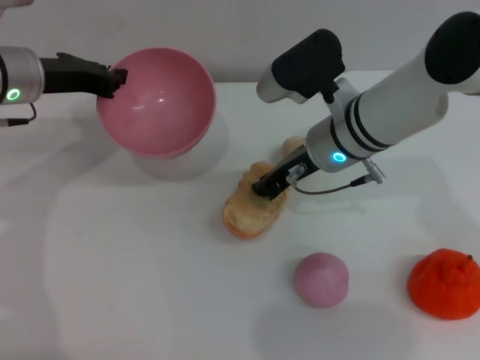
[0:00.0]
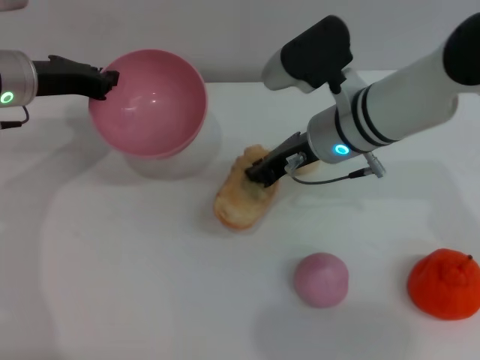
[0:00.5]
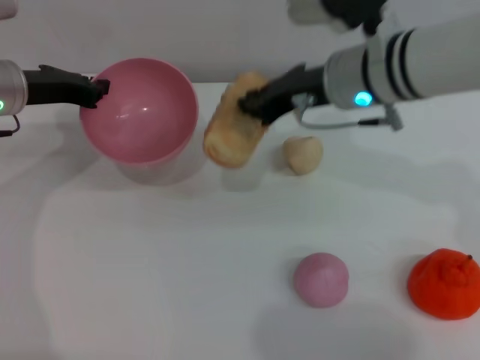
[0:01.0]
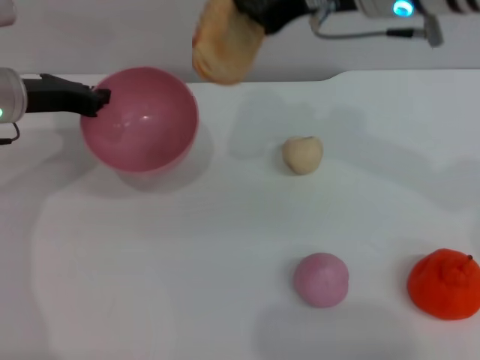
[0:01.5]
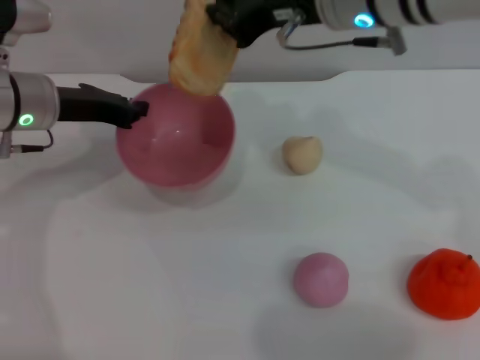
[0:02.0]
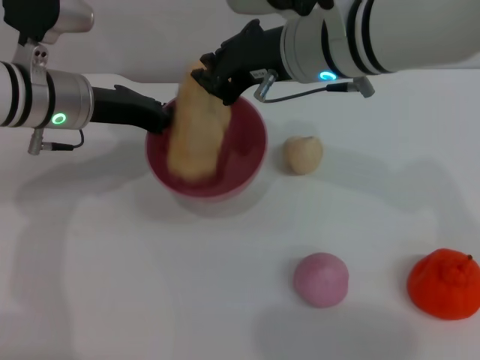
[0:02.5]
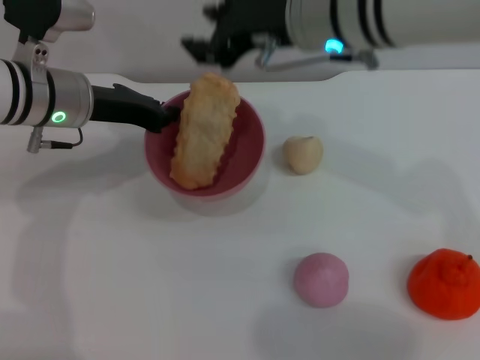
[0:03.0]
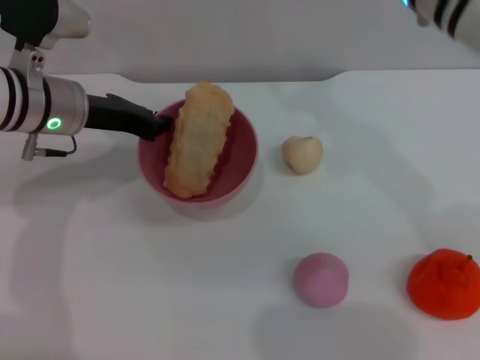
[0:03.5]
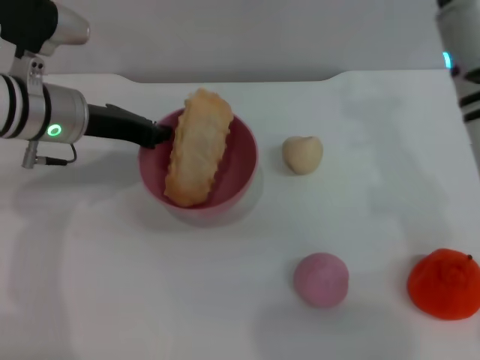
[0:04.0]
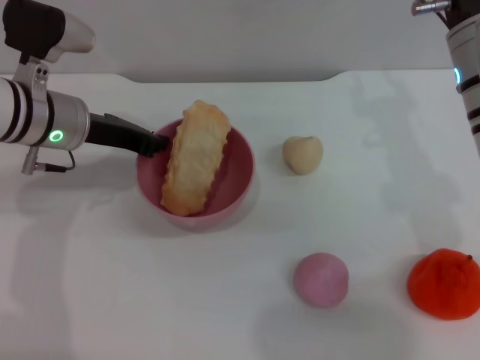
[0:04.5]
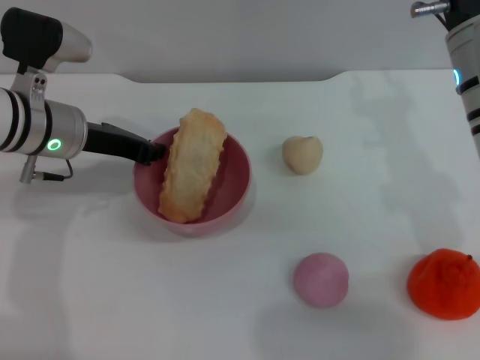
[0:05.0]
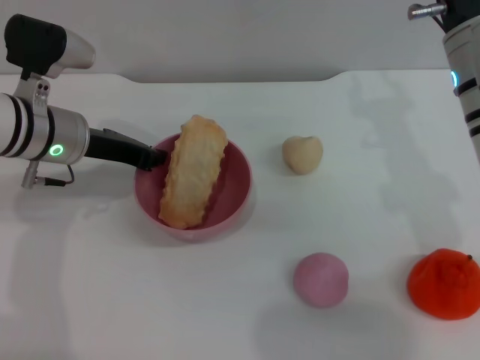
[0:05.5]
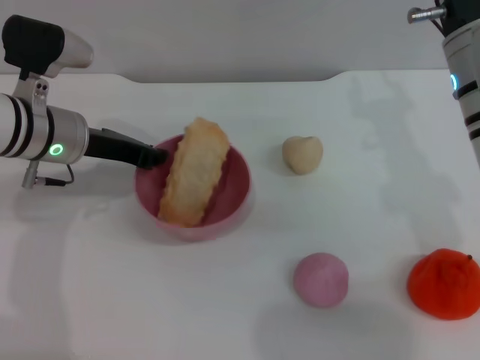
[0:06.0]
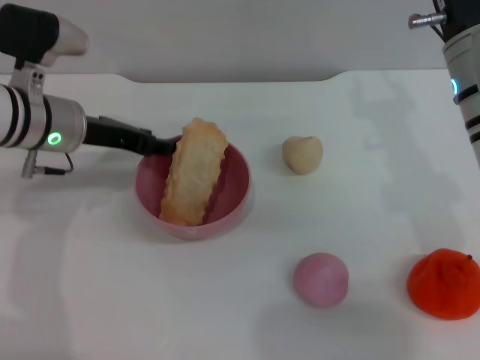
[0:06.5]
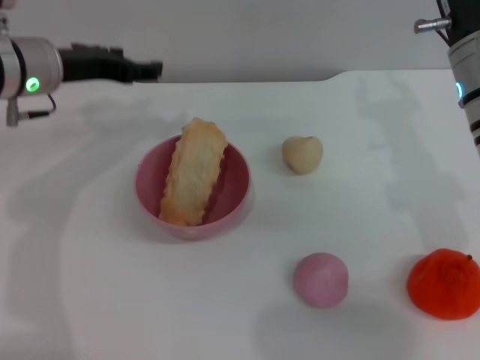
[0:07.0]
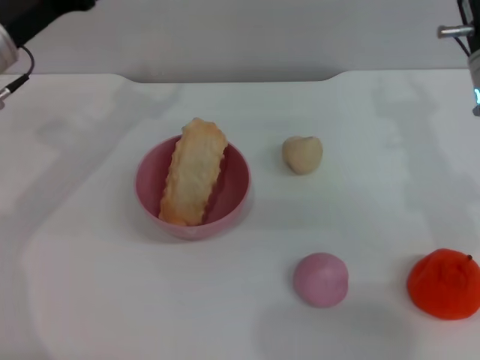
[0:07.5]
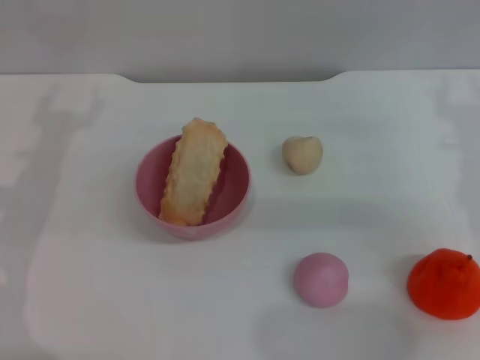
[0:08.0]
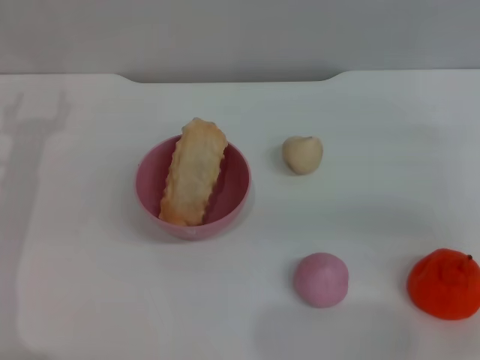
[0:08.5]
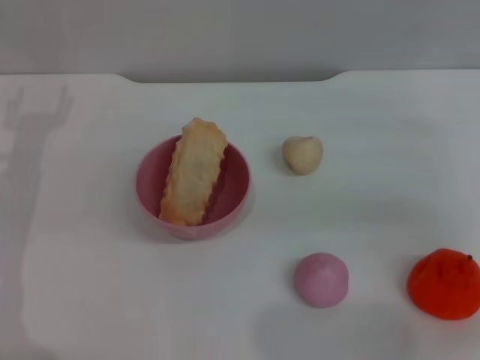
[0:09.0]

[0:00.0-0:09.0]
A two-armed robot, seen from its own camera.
Task of the whole recording: put the bread into the pink bowl and pour it out repeatedly.
Step, 0:01.5 to 0:02.5: Place the bread into the bowl.
Step, 0:03.0 to 0:06.5: Place the bowl on the table.
0:00.0 to 0:02.0: The right gripper moves upward, roughly 15 cm.
0:02.0 to 0:04.5: The right gripper moves downward and to the right, some 10 cm, and opens up.
0:04.5 to 0:07.0: The left gripper opens up.
0:07.0 to 0:09.0: The left gripper is displaced to the left, backward and downward by roughly 10 cm, while the right gripper is displaced to the right by about 15 cm.

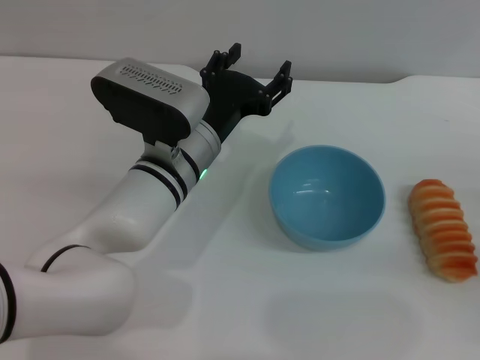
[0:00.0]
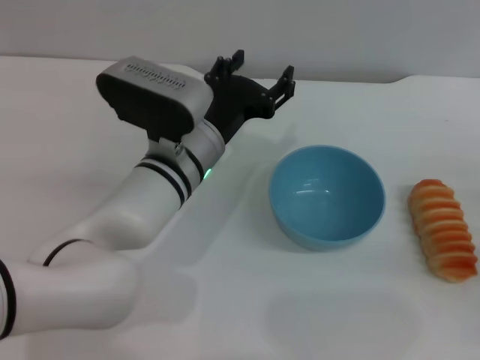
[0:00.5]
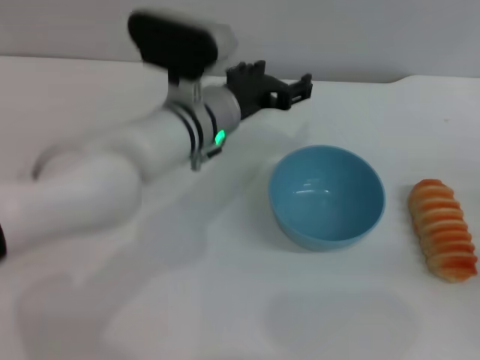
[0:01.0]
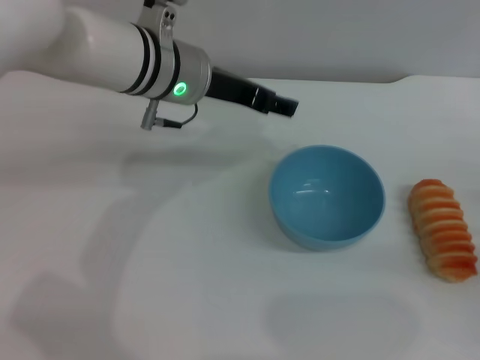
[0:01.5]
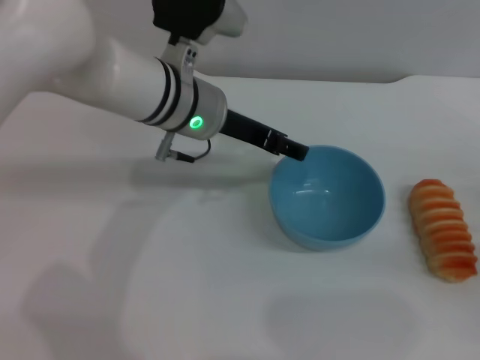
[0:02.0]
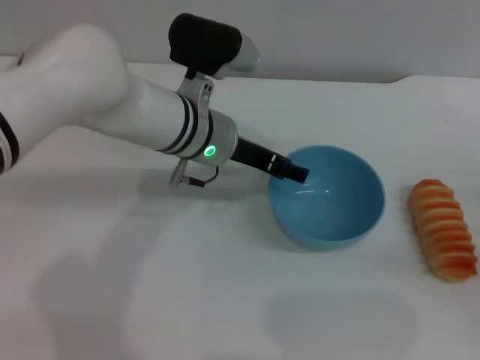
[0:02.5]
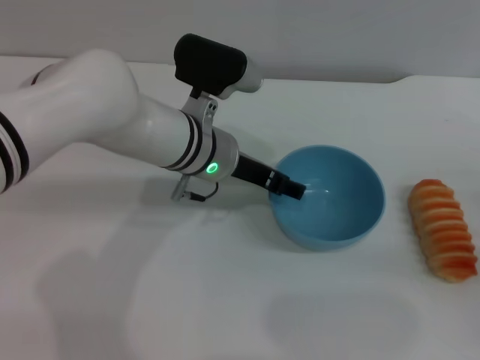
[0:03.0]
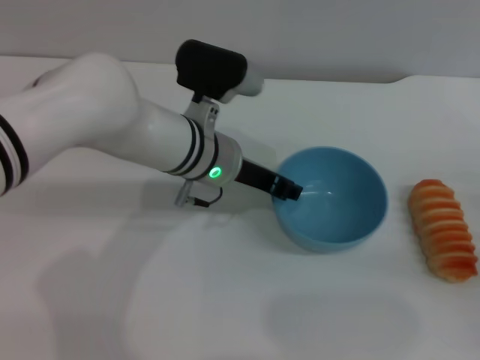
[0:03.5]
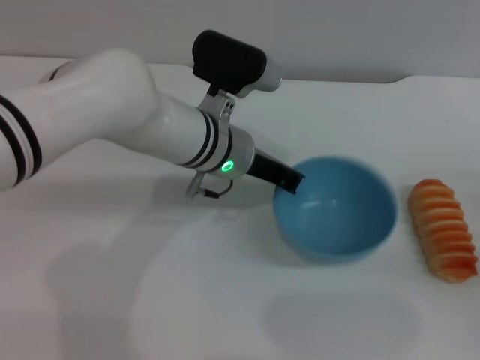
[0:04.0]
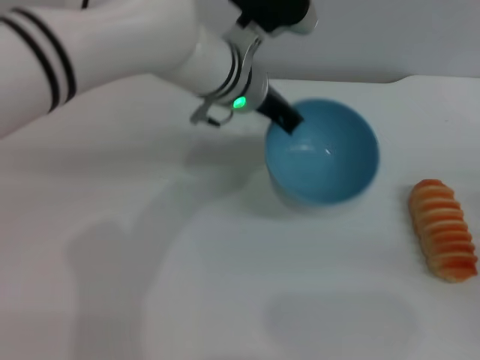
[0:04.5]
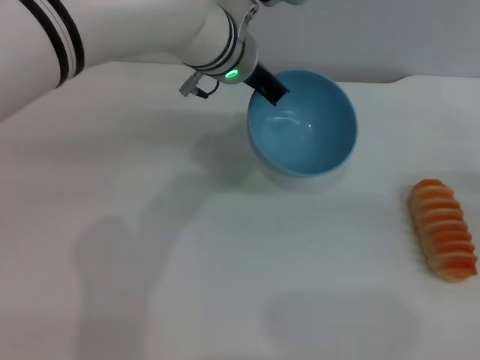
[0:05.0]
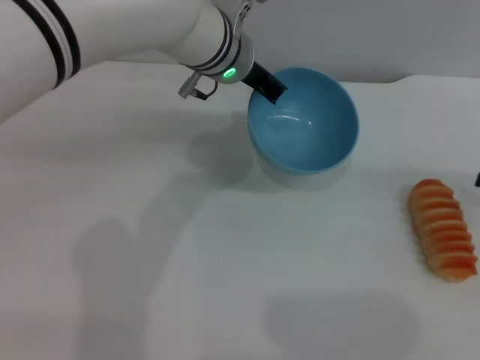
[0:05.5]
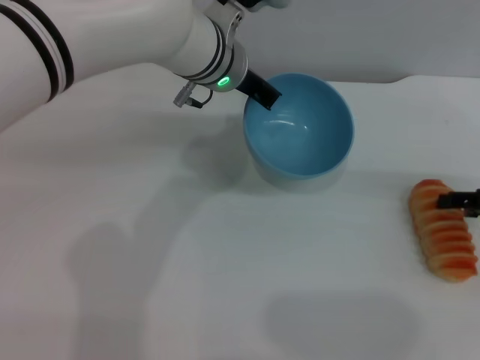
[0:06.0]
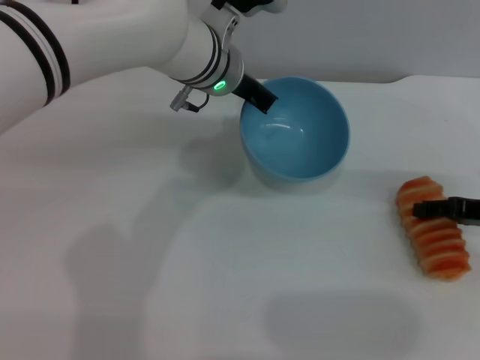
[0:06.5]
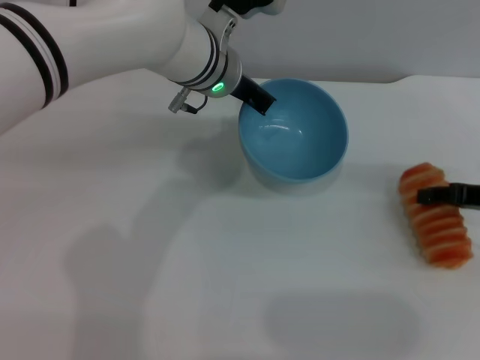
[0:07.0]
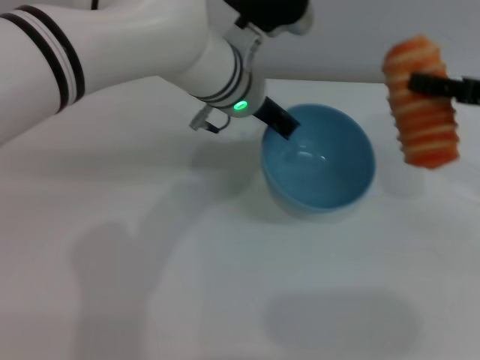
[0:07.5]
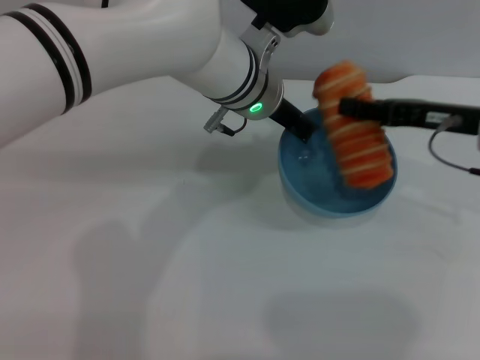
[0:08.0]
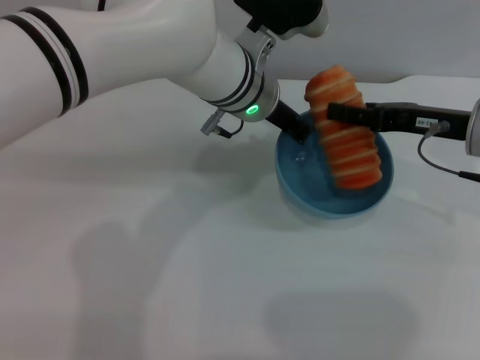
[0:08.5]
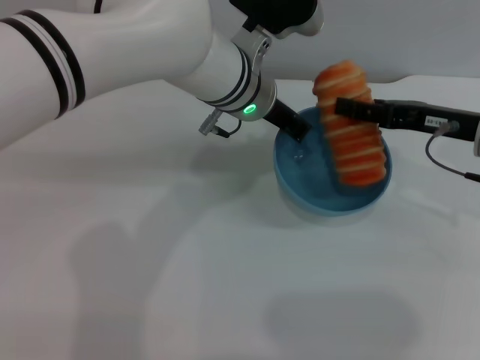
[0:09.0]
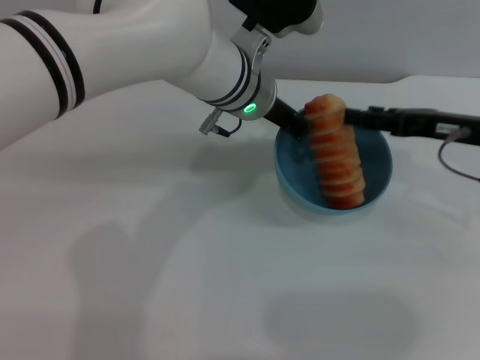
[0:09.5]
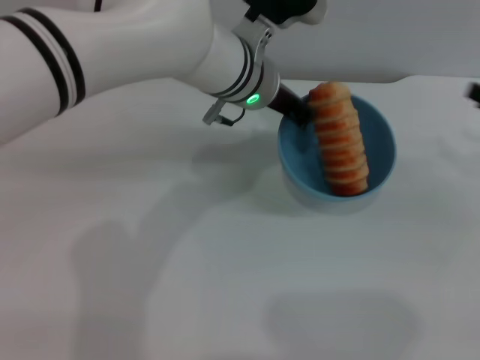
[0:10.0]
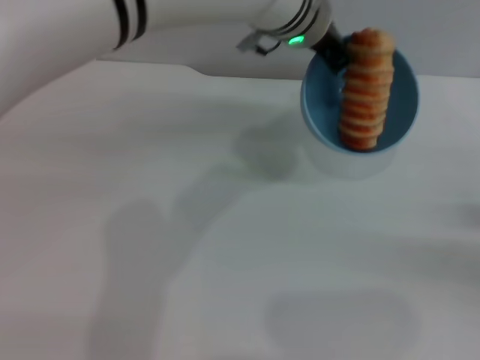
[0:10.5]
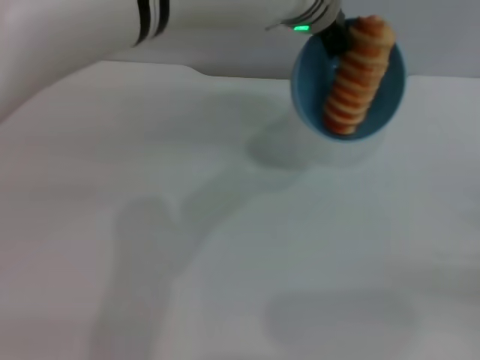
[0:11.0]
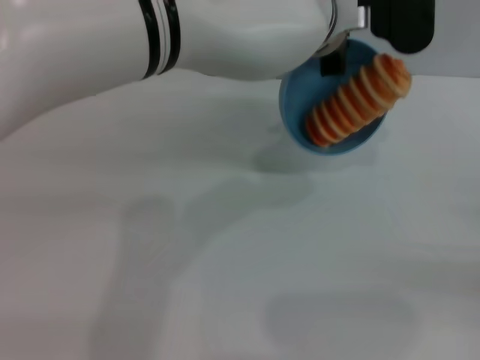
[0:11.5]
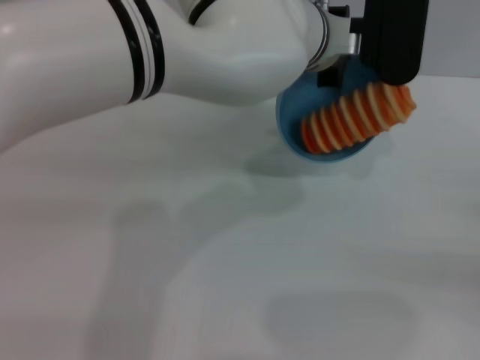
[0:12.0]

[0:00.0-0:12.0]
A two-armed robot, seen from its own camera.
Task of the whole recording: put the bread into the blue bowl and pour it out repeatedly.
Step, 0:00.0 to 0:04.0: Pick up the bowl with the left gripper.
Step, 0:04.5 to 0:07.0: Pick up the bread with the right gripper.
Step, 0:07.5 to 0:09.5: Place the bread into the bowl.
0:00.0 to 0:02.0: The left gripper shifts some 10 cm upward and forward.
0:02.0 to 0:04.0: The left gripper moves approximately 5 cm, and closes.
0:04.0 to 0:06.0: The left gripper shifts roughly 10 cm upward and forward, while the right gripper travels forward by roughly 5 cm.
0:06.0 to 0:08.0: The right gripper moves to the left and upward, roughly 10 cm, and closes its fingers.
0:08.0 to 0:10.0: The right gripper heads to the right, covering about 10 cm, and opens.
0:10.0 to 0:12.0: The left gripper travels to the right by approximately 5 cm. Meanwhile the right gripper shifts some 10 cm backward and downward.

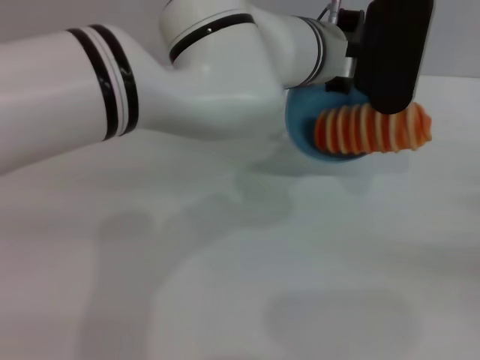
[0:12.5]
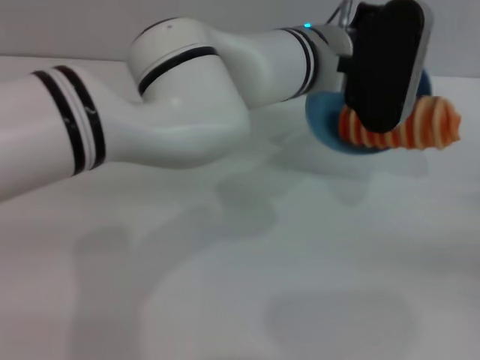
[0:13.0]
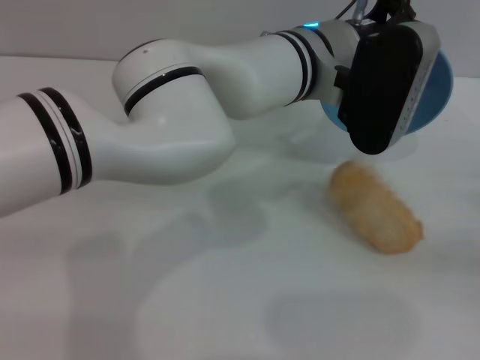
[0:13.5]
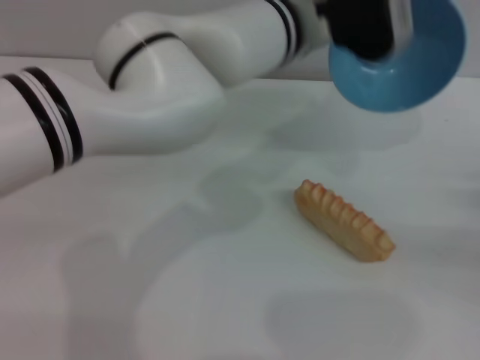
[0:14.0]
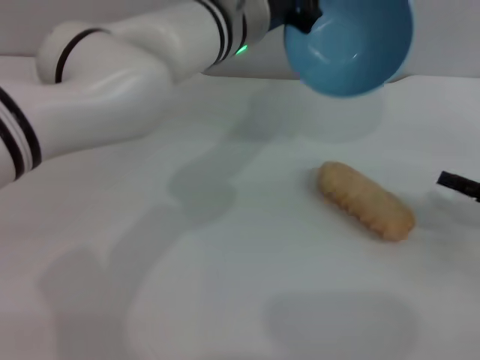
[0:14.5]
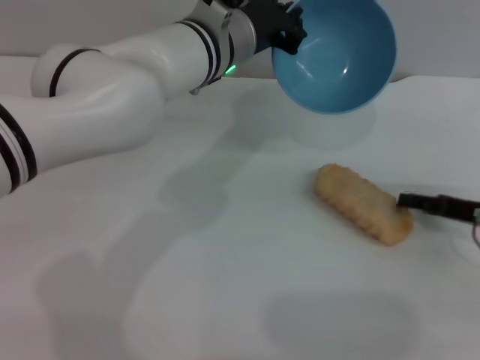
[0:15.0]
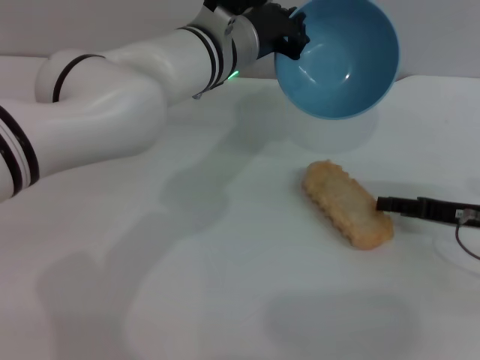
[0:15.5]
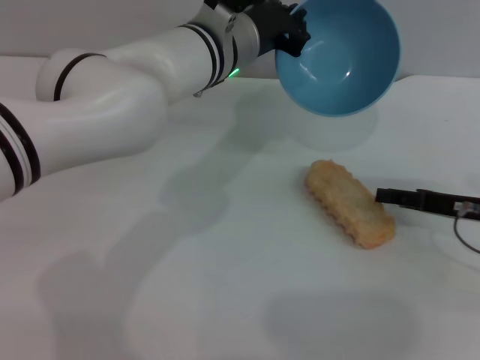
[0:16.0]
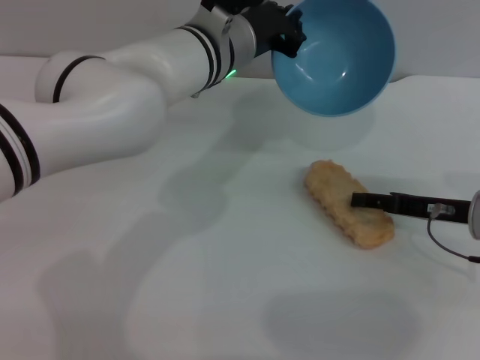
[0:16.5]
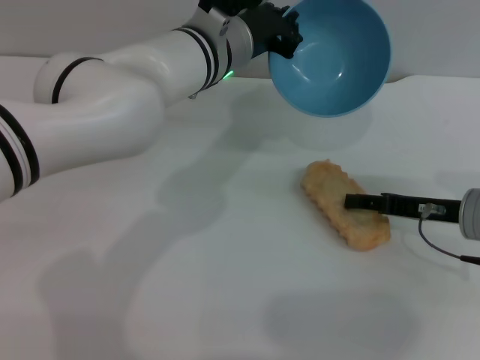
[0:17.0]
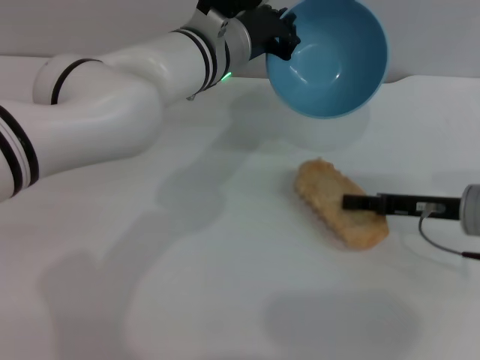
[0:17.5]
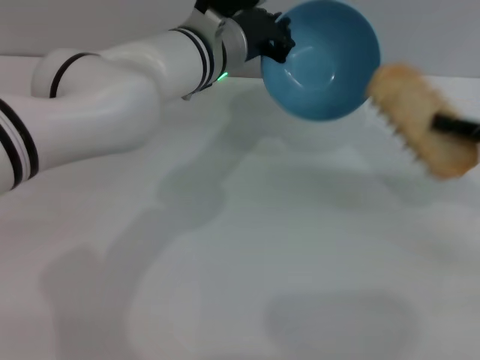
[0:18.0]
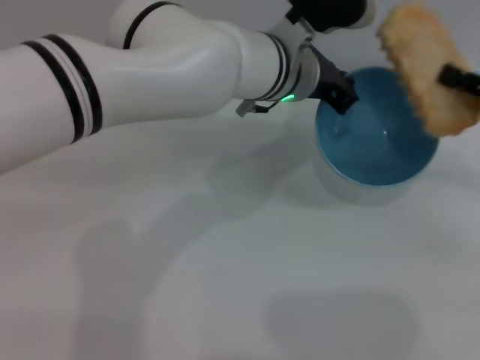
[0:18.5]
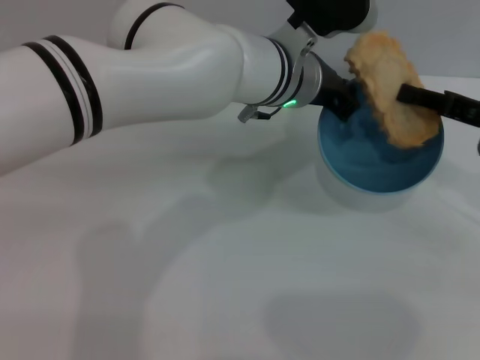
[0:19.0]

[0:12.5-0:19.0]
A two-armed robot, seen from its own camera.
Task of the whole recording: put the bread into the blue bowl and pour it out repeatedly.
Step, 0:14.5 to 0:17.5: Pick up the bread with the right gripper.
0:12.5 to 0:14.5: The left gripper travels to the left by roughly 10 cm. Meanwhile the right gripper changes place by approximately 5 cm.
0:14.5 to 0:17.0: The right gripper goes about 10 cm to the left.
0:17.0 to 0:19.0: The left gripper is displaced to the right by about 5 cm, while the right gripper shifts approximately 10 cm upward, and closes its fingers.
